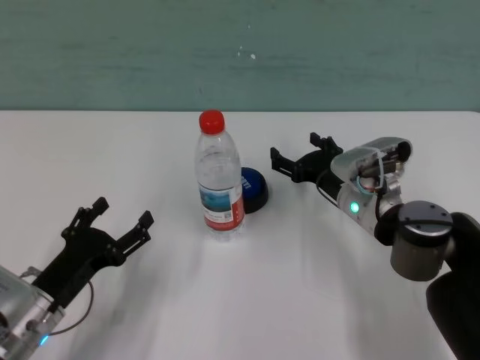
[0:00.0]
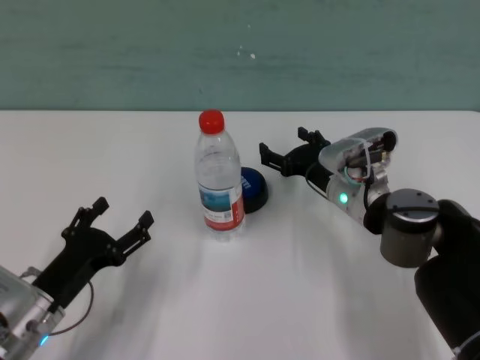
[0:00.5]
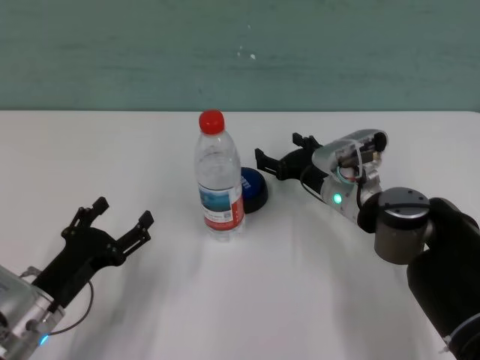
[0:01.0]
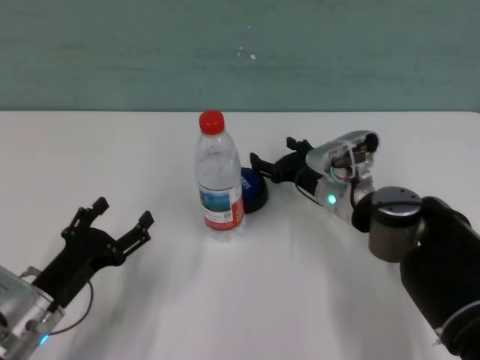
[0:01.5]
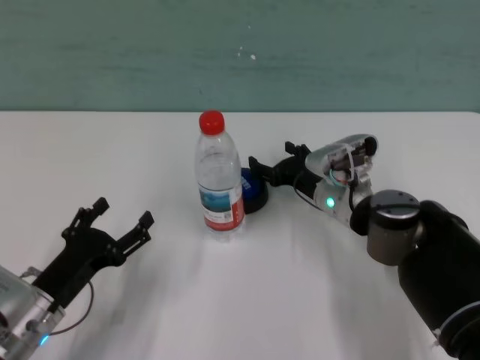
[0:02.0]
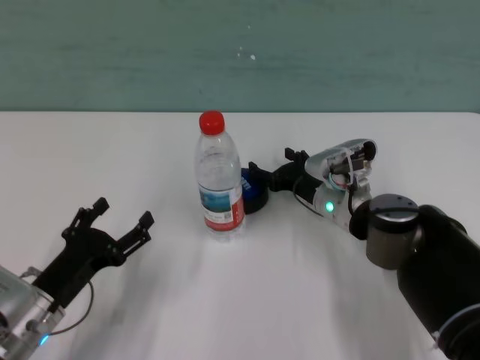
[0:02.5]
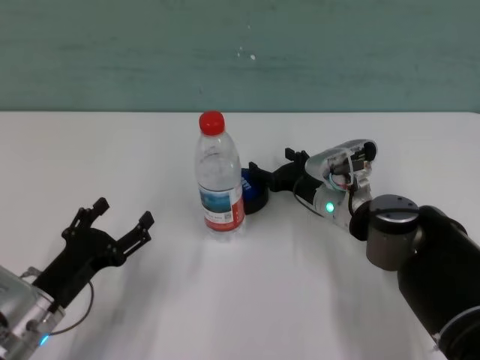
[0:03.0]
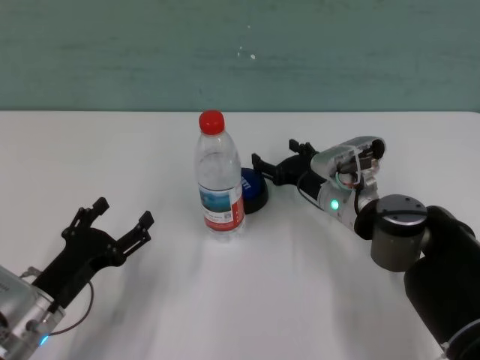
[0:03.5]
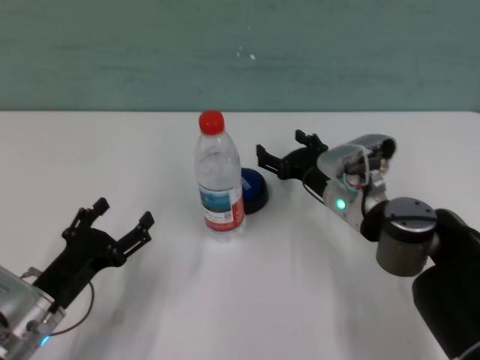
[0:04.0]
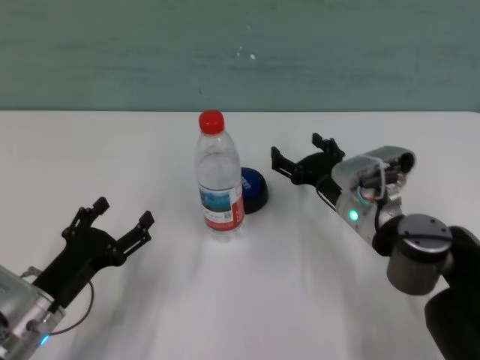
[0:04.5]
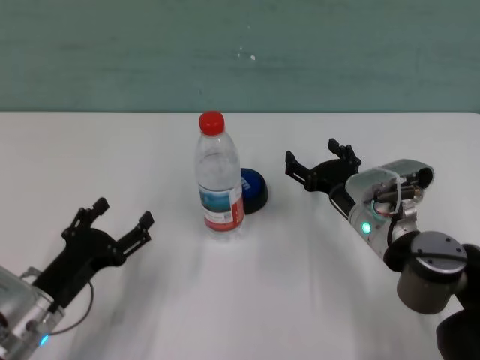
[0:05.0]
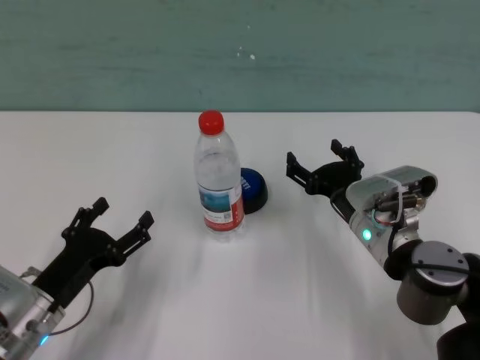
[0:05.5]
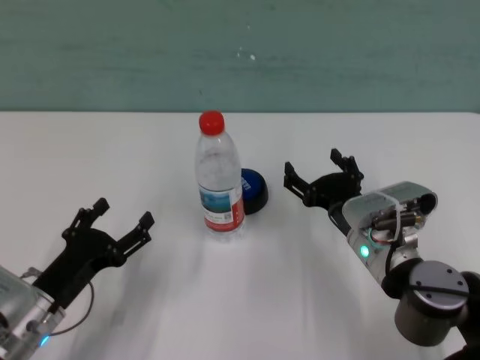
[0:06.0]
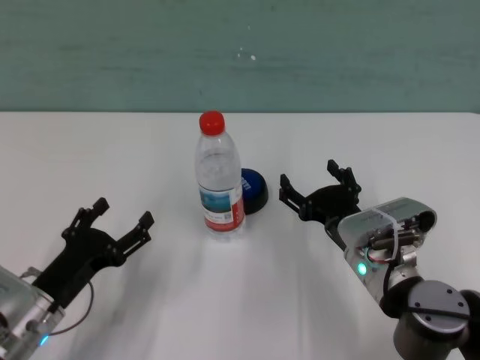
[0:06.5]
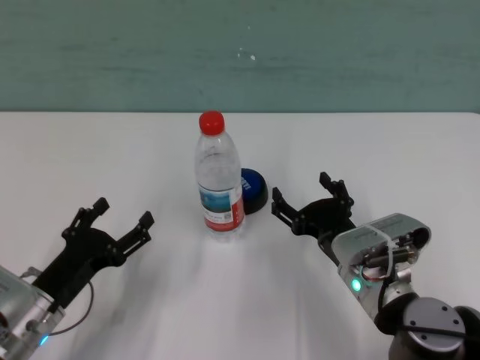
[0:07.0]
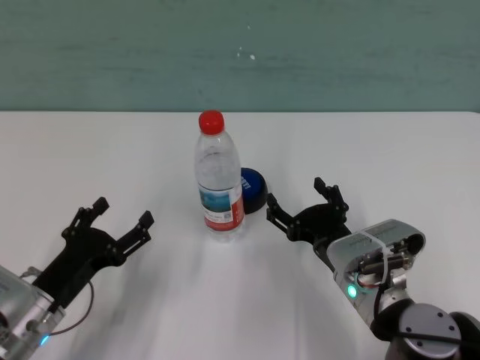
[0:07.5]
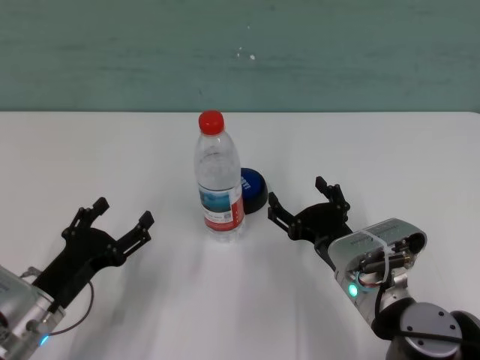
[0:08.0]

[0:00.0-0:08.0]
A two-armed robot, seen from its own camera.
Task of the whole recording: after avoiding the water bottle on the table, press the button.
Step, 0:00.0 to 0:03.5: Press the button blocked by the bottle with right gripper.

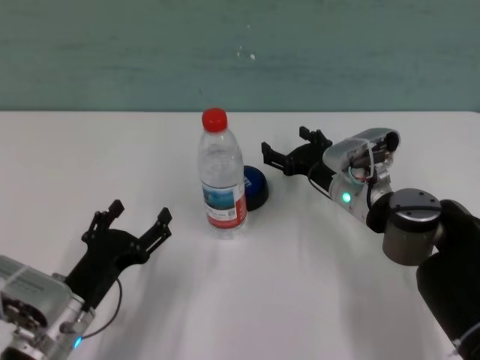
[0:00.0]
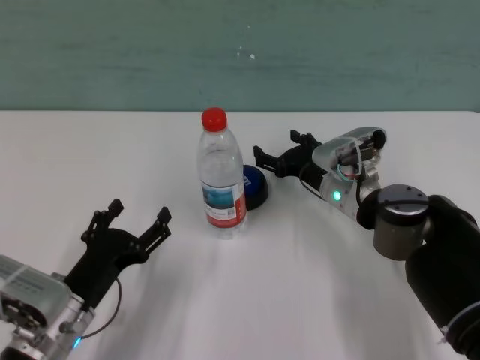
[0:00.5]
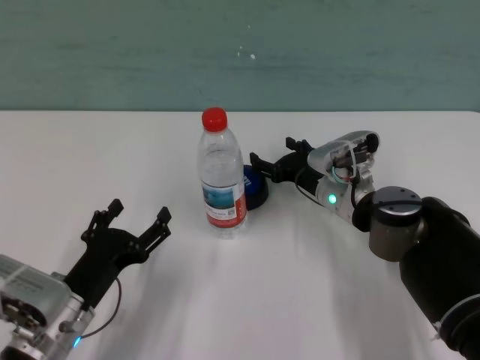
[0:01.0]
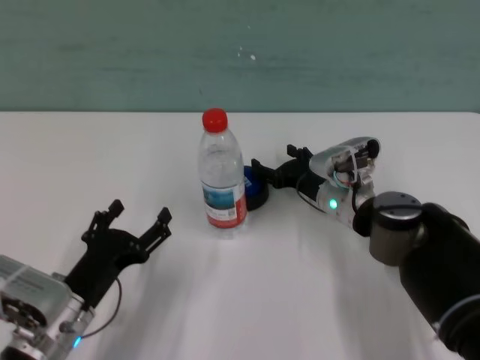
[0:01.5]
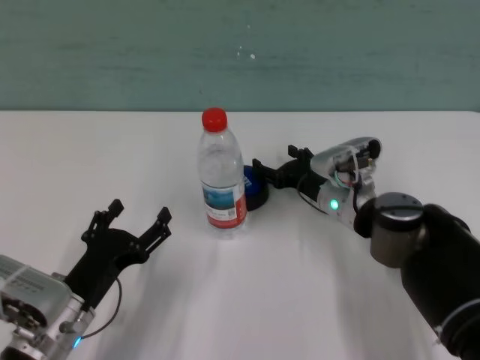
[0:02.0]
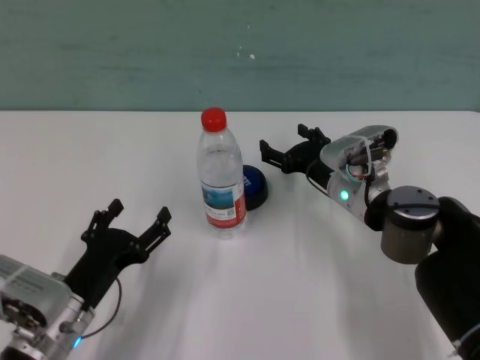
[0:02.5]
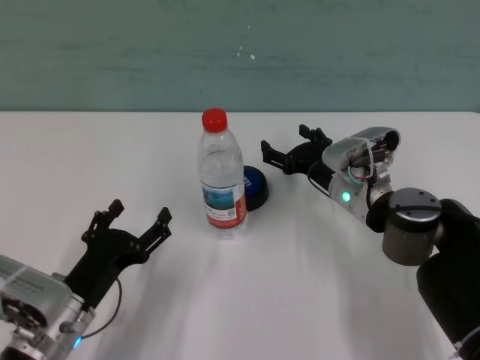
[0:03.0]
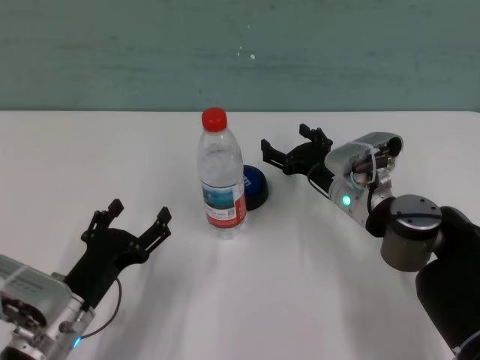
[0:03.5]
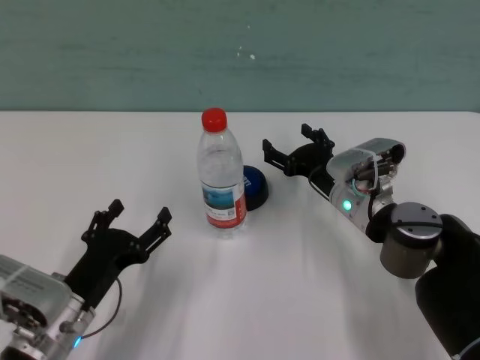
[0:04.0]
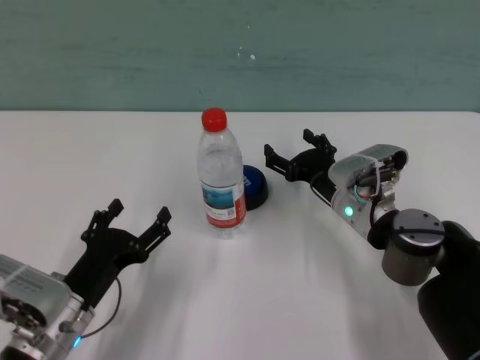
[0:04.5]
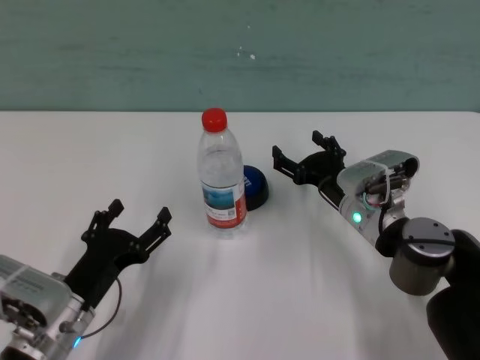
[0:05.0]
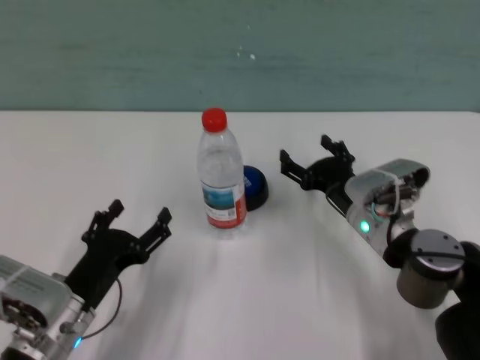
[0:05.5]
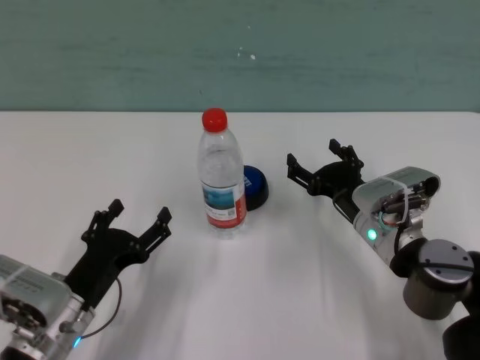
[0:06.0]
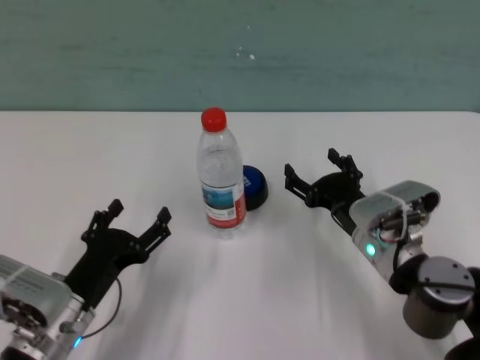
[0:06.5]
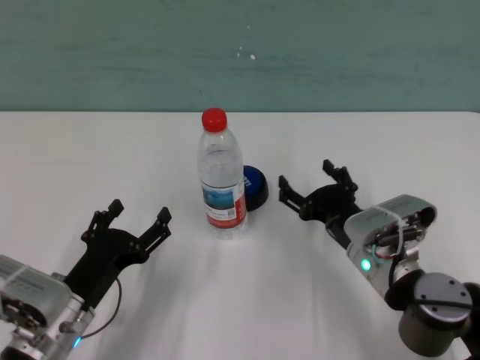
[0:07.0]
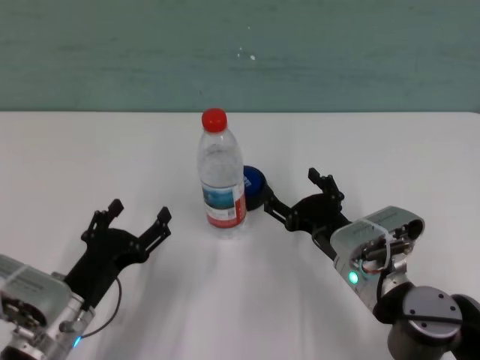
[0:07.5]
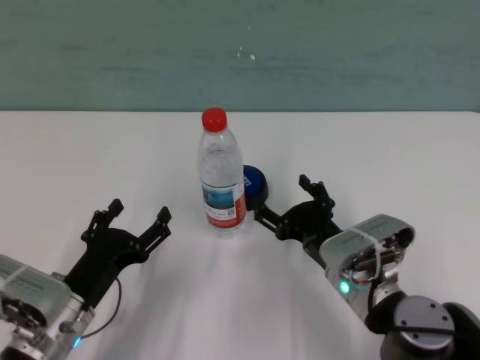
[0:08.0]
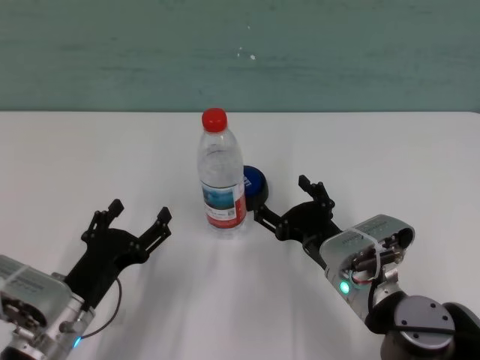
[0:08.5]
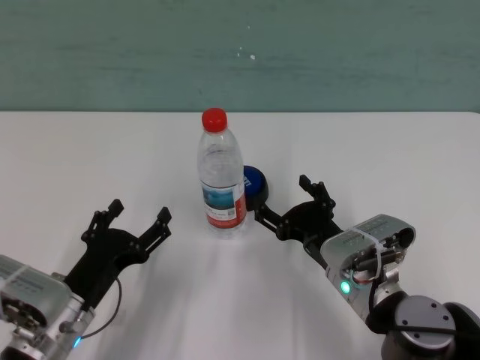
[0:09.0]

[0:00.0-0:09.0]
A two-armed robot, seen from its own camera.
Task of the whole recording: after avoiding the water bottle on the table, press the button.
Step, 0:00.0 to 0:02.0: Press the button blocked by the bottle with right gripper.

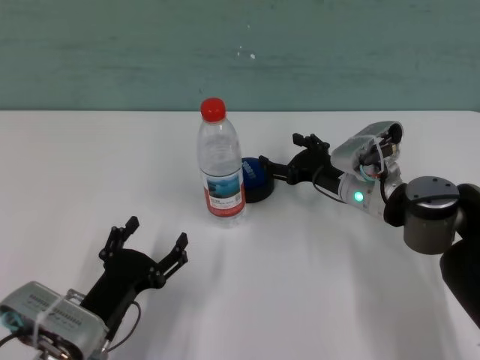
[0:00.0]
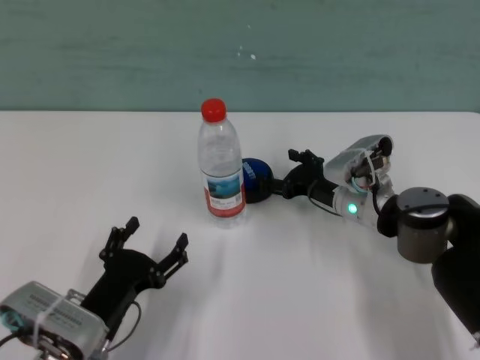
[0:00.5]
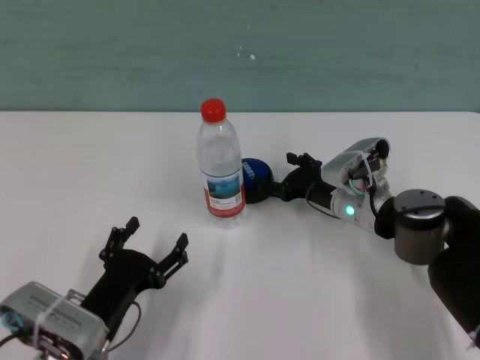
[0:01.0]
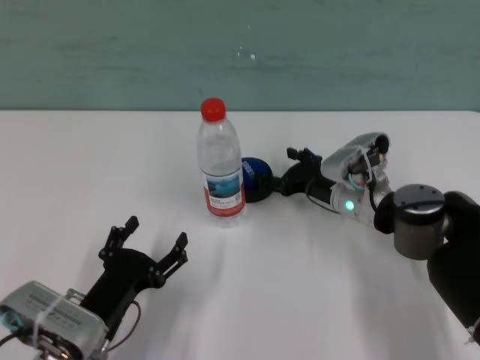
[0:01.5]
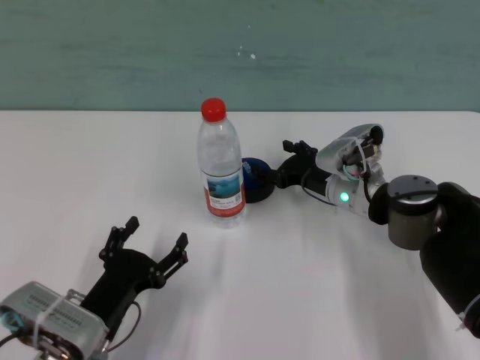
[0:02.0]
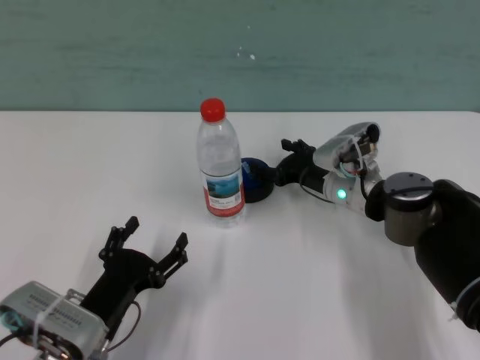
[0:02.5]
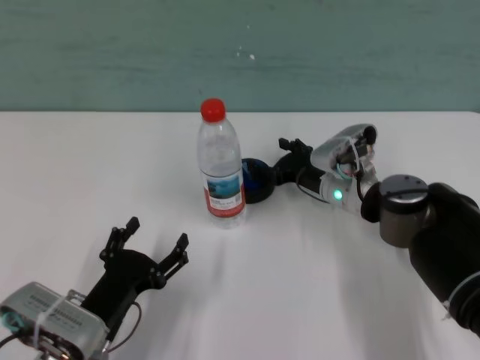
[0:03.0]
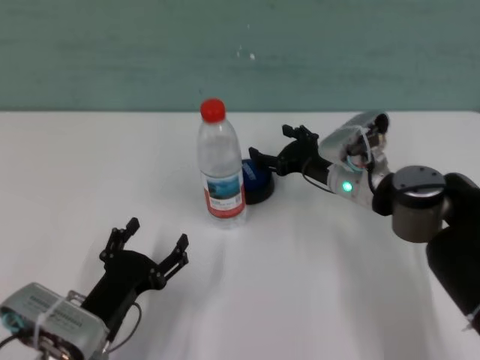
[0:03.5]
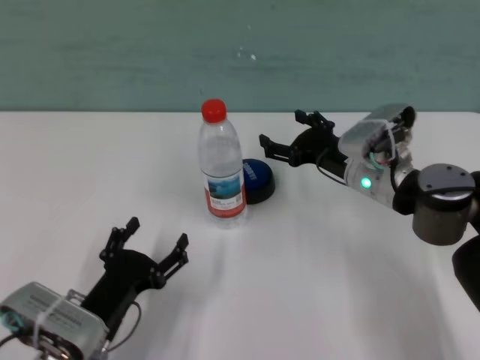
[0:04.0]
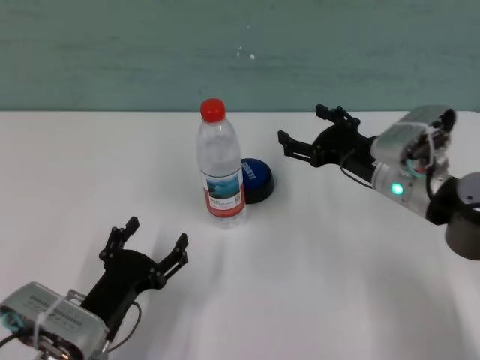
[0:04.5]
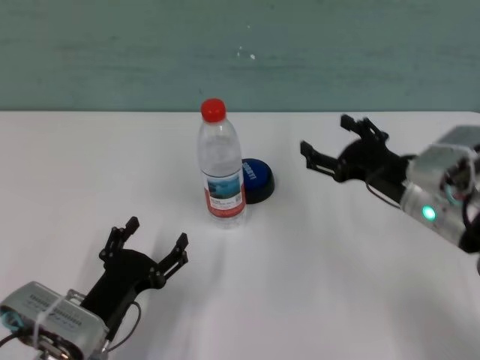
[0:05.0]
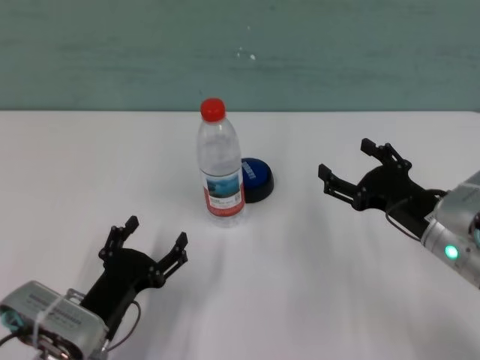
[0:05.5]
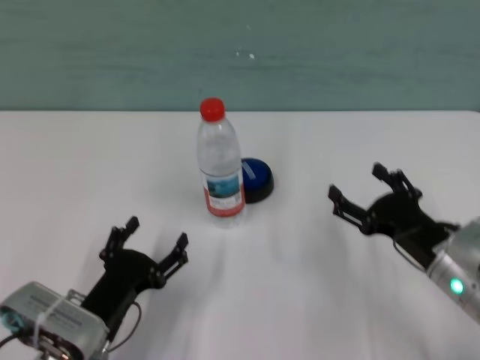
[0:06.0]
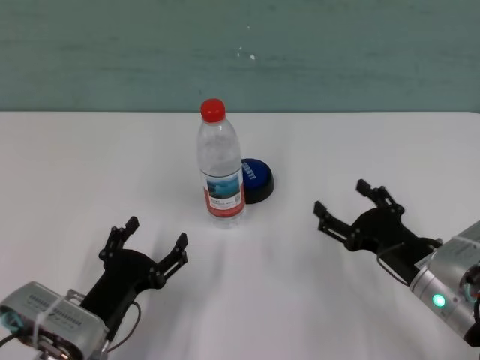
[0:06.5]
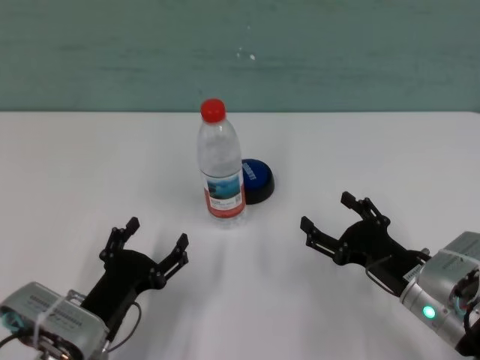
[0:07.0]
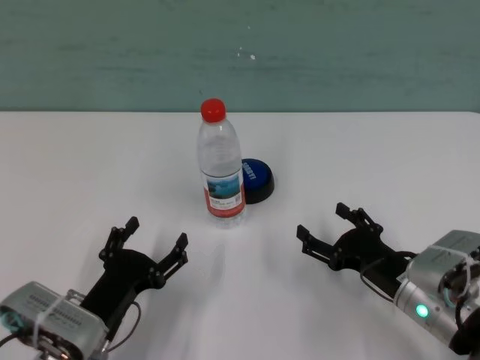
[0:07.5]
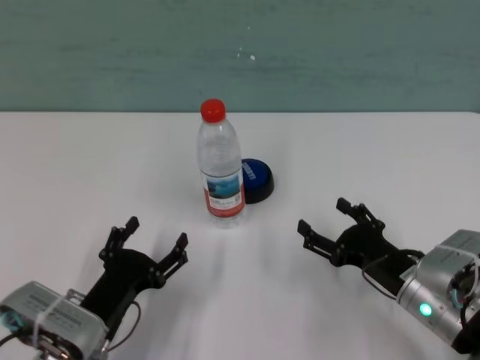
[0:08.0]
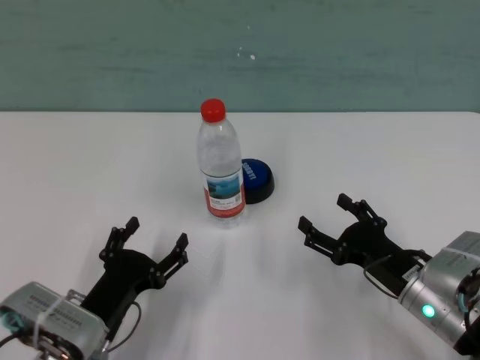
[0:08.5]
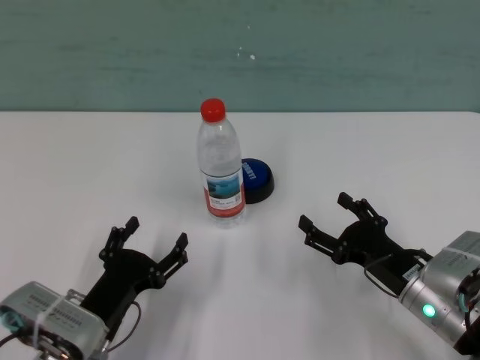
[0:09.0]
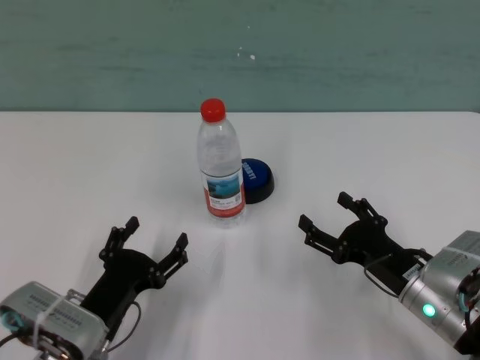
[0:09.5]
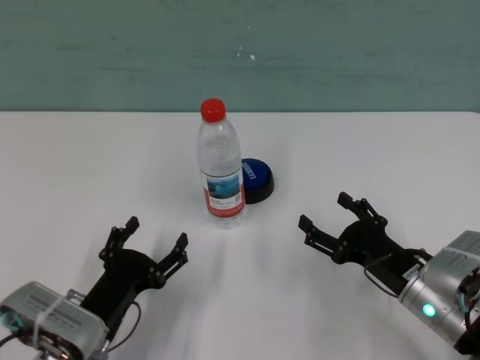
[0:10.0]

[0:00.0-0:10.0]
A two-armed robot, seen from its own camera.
Task of the whole recording: after avoiding the water bottle on the table, press the button.
Step, 0:00.0 to 0:03.0: Press the button blocked by the bottle with right gripper.
